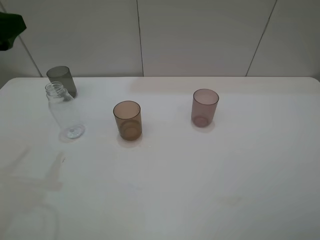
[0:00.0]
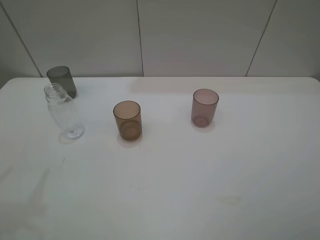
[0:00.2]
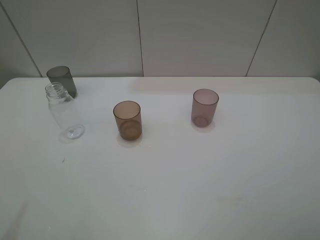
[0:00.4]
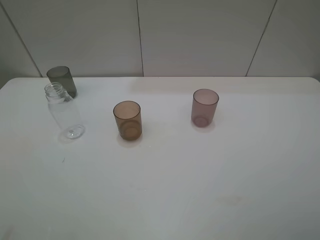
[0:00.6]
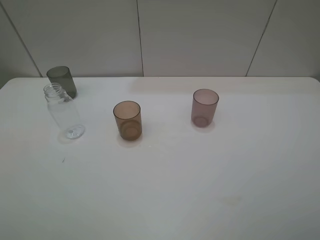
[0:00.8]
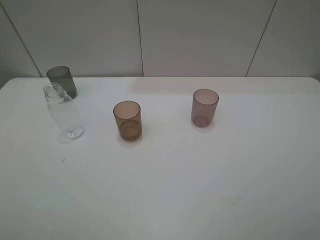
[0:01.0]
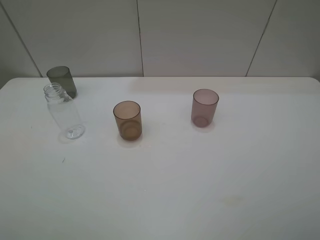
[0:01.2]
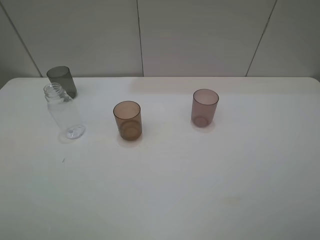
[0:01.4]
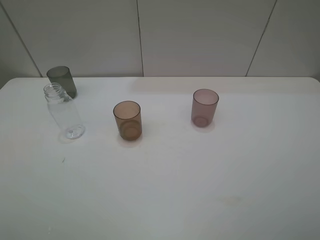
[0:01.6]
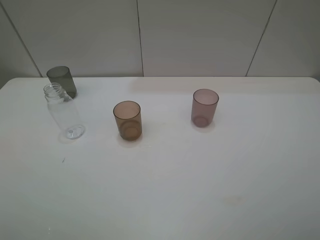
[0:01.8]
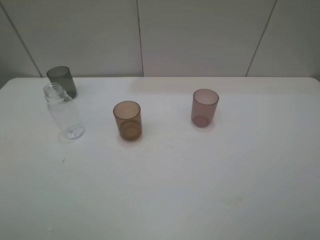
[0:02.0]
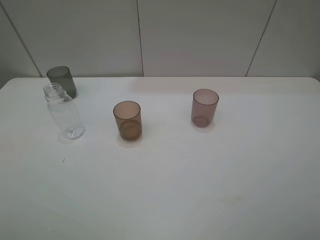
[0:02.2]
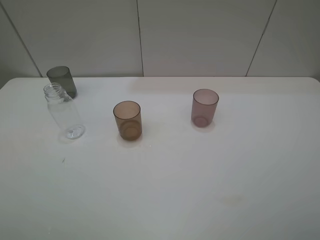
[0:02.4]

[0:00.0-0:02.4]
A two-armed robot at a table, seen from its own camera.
Task of the whole recording: pick up the bottle filled with water and pour water into the middle cup of the three cups.
0:00.0 to 0:01.2: The left gripper moves backward, some 20 cm.
